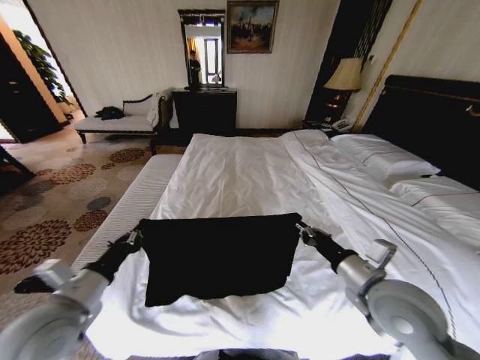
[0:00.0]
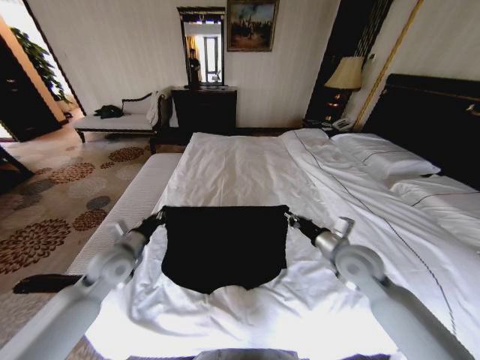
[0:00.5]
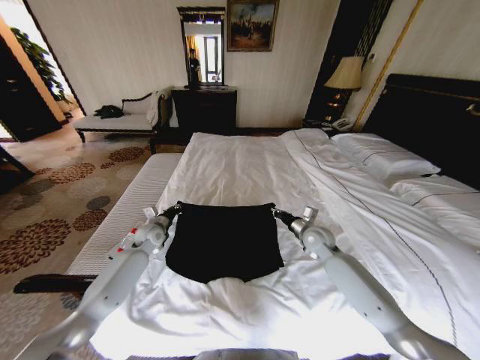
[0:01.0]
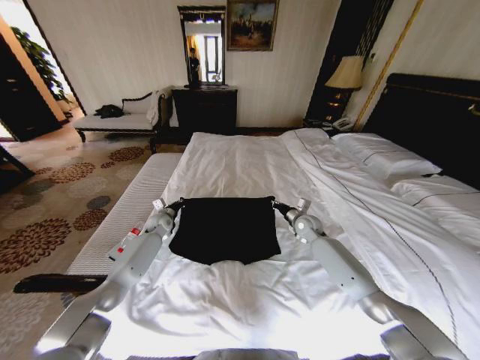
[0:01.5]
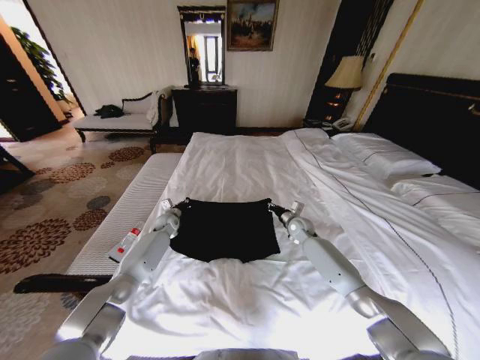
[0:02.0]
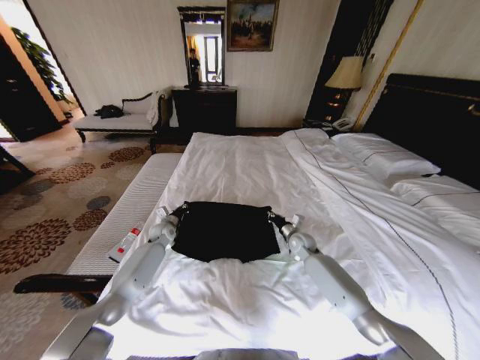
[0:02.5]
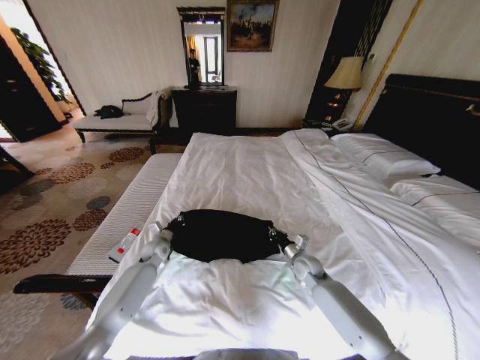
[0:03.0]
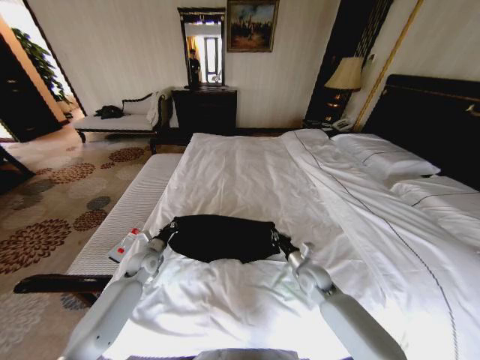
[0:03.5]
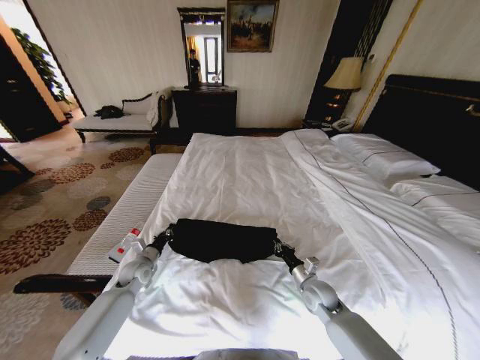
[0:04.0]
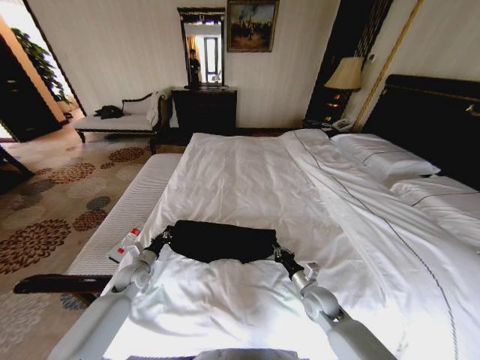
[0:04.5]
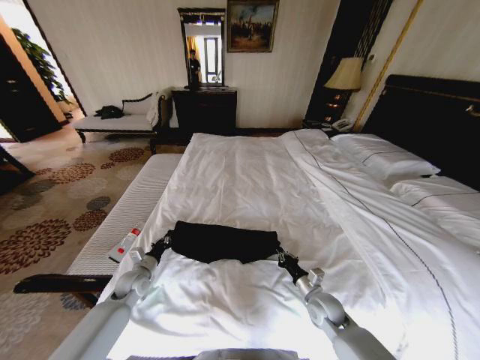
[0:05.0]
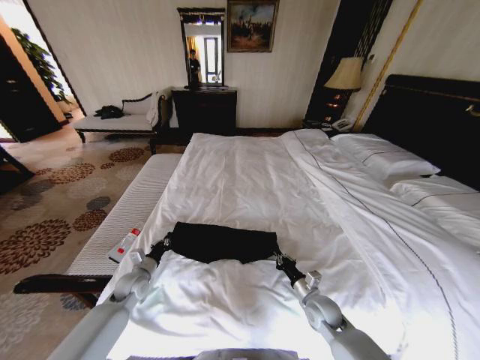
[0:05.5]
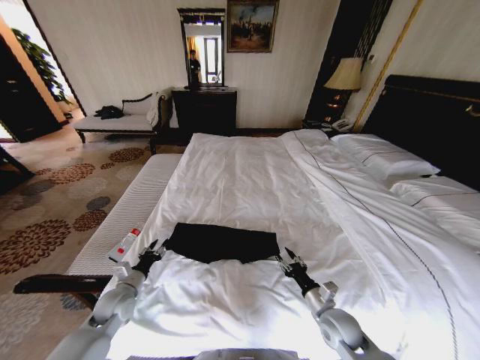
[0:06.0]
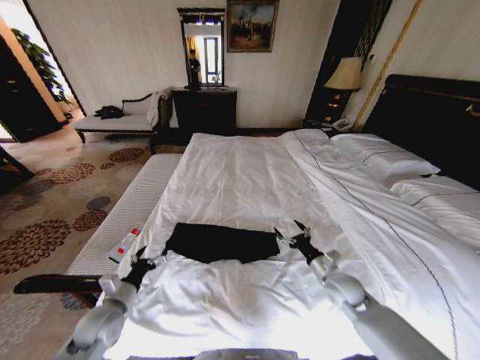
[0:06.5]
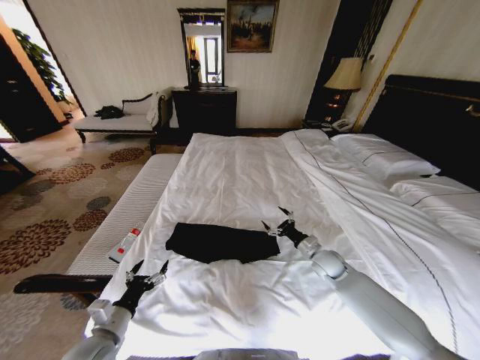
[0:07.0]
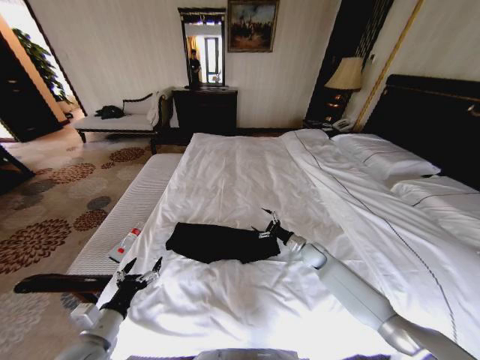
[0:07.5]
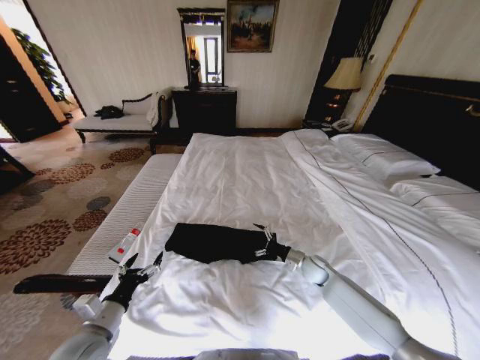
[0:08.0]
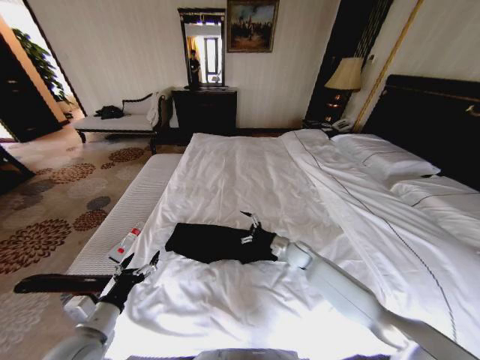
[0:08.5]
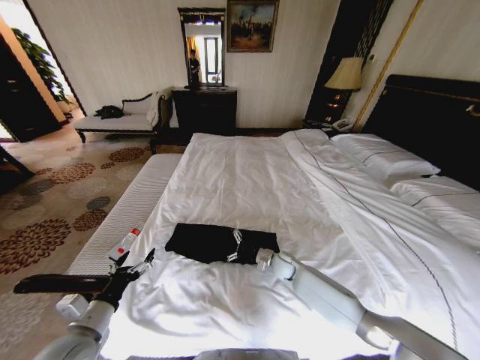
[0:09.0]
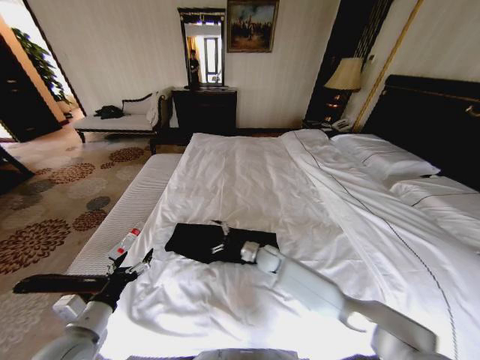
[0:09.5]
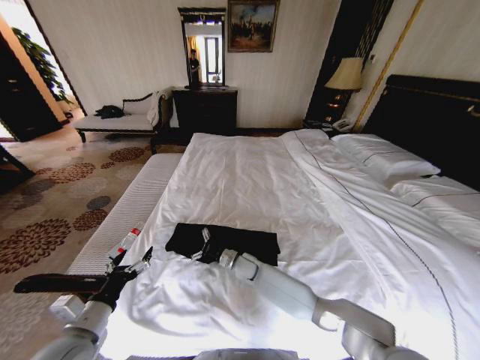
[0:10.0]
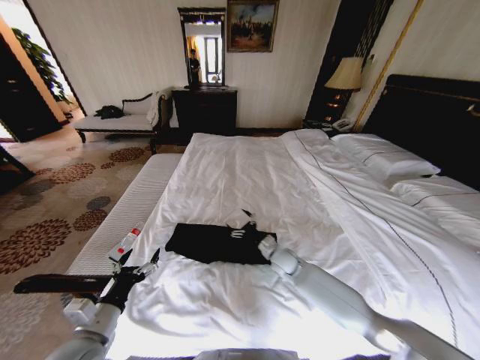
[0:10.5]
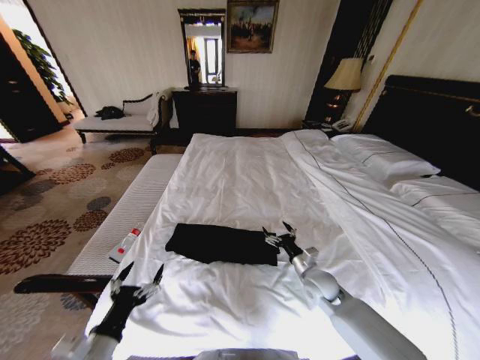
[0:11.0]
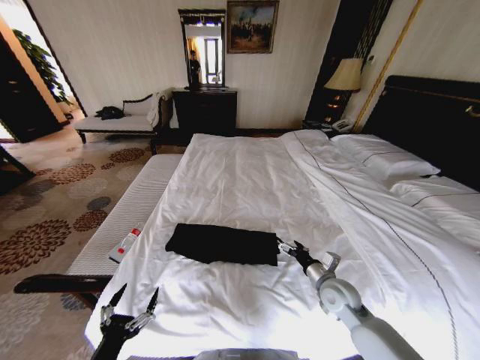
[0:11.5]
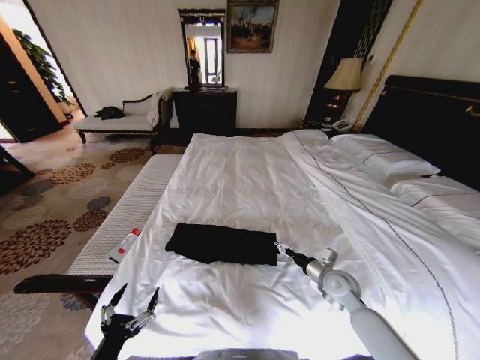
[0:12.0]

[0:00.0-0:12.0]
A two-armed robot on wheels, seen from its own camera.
Task of the whole recording: Fold the clothes on the bed.
0:00.0 to 0:02.0: Both grippers travel together forward and downward, about 40 cm.
0:02.0 to 0:04.0: Both grippers move backward, approximately 20 cm.
0:04.0 to 0:06.0: The grippers both shift backward by approximately 10 cm. The right gripper opens its fingers. The left gripper opens its fingers.
0:06.0 to 0:08.0: The left gripper moves backward and upward, some 15 cm, and opens. The right gripper travels forward by about 15 cm, and opens its fingers.
0:08.0 to 0:10.0: The right gripper is displaced to the left by about 25 cm.
0:10.0 to 0:12.0: The left gripper moves backward, some 10 cm. Meanwhile the right gripper heads to the right, covering approximately 25 cm.

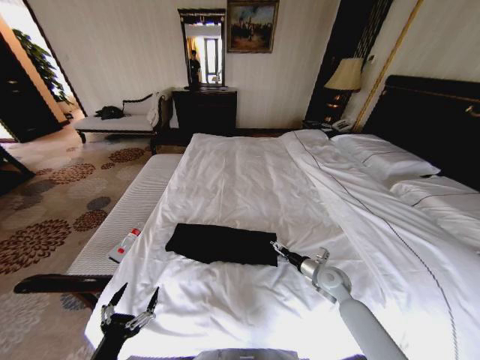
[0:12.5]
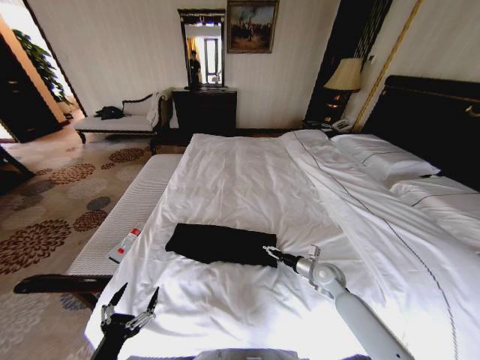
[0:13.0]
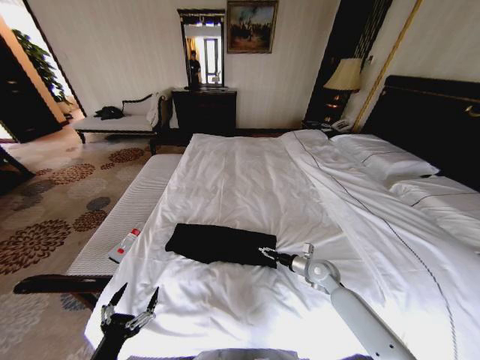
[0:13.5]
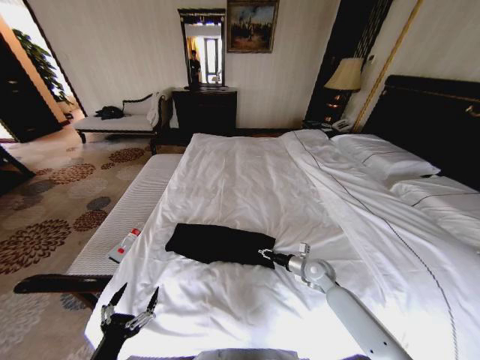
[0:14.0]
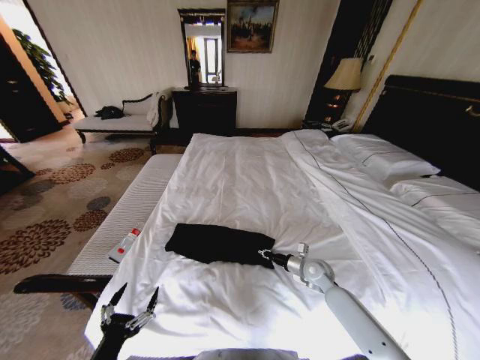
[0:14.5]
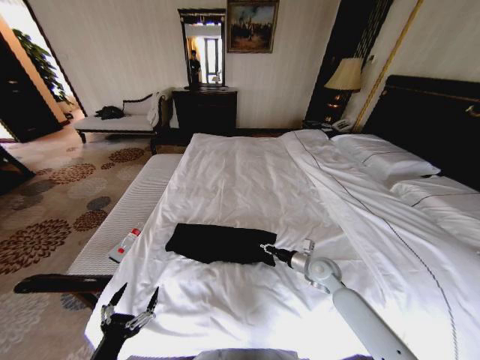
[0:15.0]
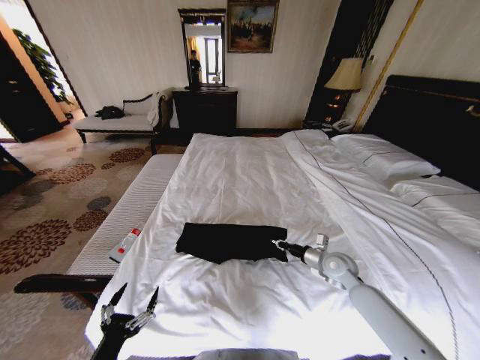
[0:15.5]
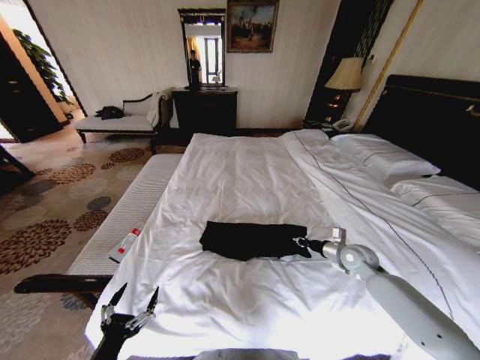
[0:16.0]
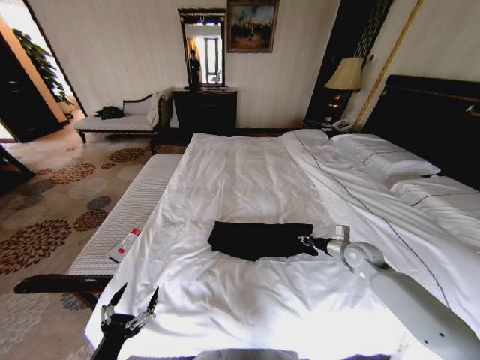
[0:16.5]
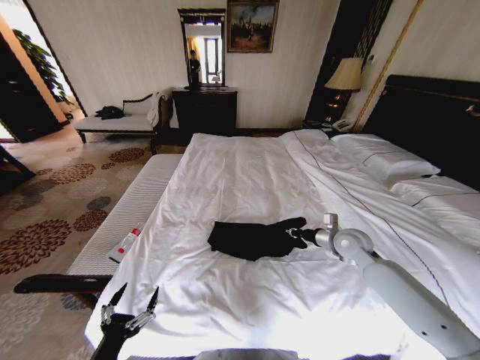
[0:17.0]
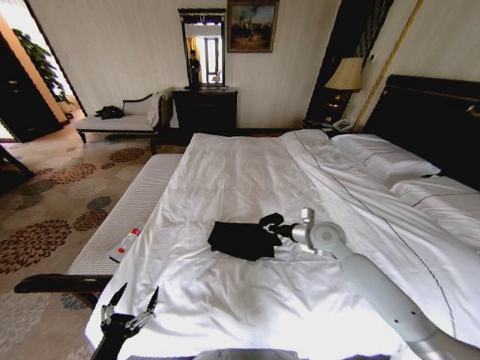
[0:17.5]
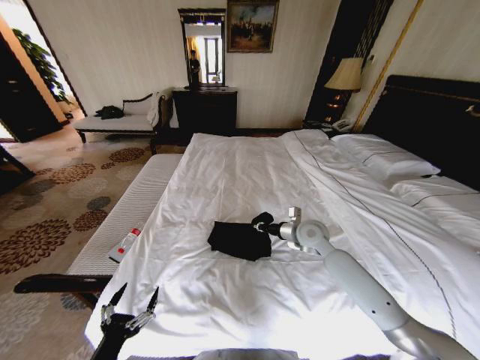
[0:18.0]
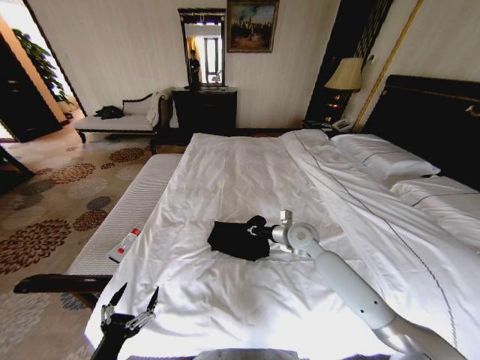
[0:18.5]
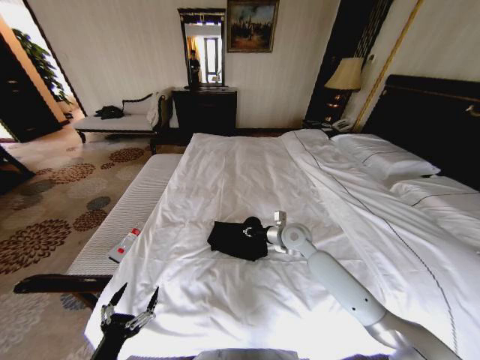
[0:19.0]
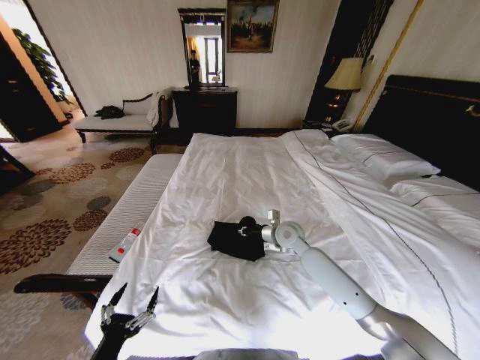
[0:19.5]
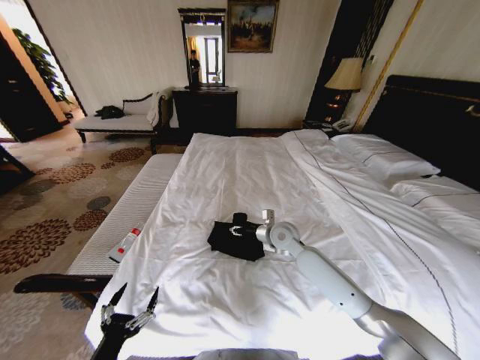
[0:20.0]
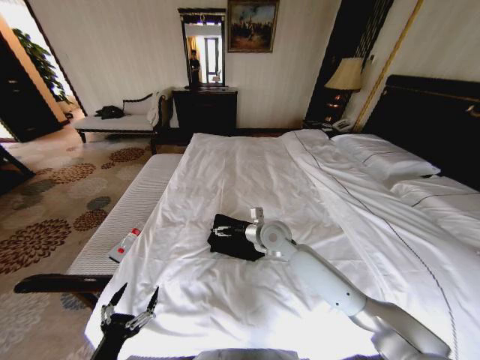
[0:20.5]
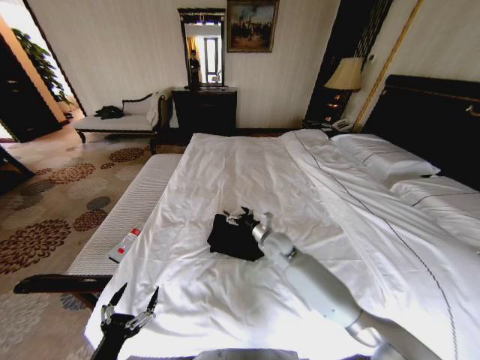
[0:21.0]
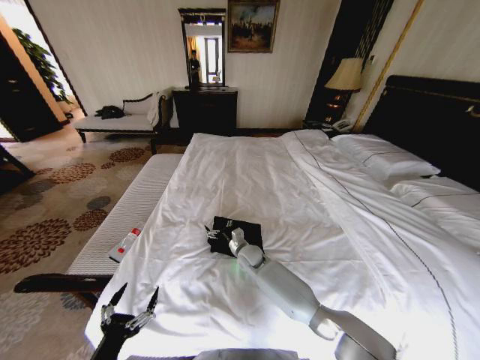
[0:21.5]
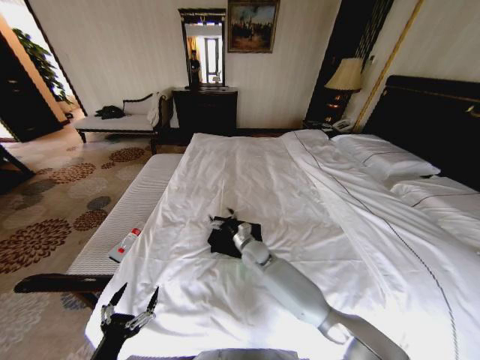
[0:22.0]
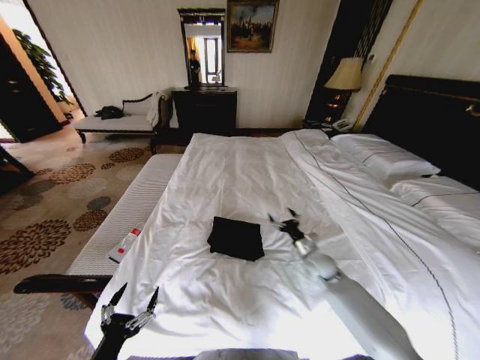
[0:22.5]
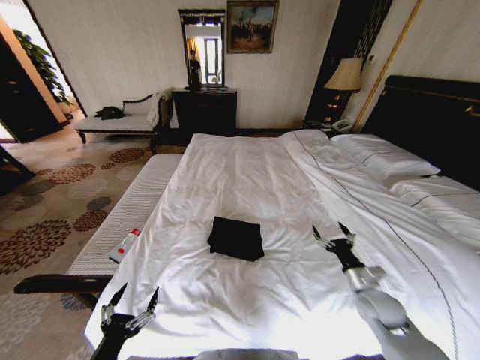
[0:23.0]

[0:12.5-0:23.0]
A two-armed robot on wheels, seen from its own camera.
Task of the whole recording: Fold the clothes on the bed.
0:12.5 to 0:14.5: The right gripper closes its fingers.
0:14.5 to 0:16.5: The right gripper travels to the right and upward by approximately 15 cm.
0:16.5 to 0:19.0: The right gripper heads to the left, covering some 20 cm.
0:19.0 to 0:21.0: The right gripper is displaced to the left and downward by some 10 cm, and opens up.
0:21.0 to 0:23.0: The right gripper shifts about 30 cm to the right and backward.
